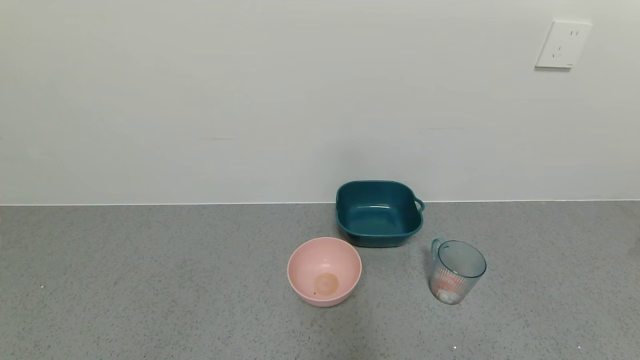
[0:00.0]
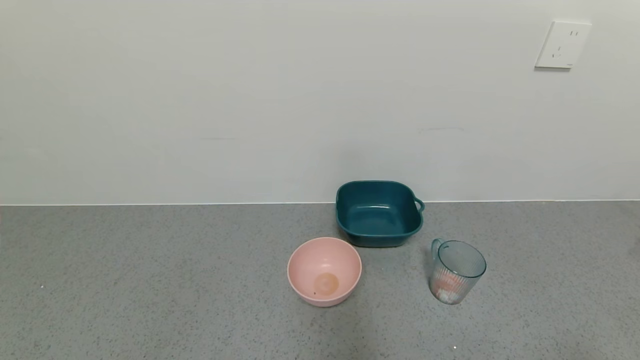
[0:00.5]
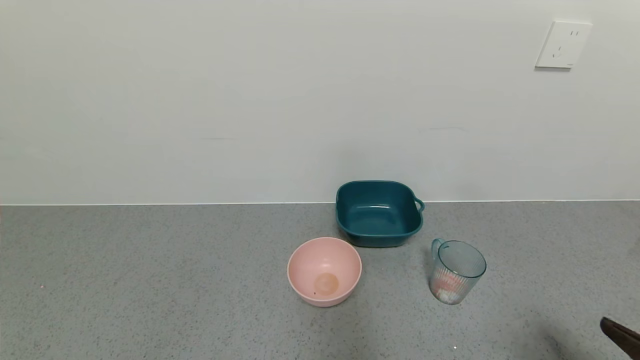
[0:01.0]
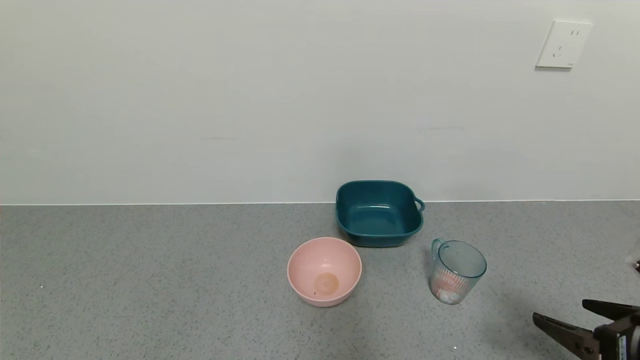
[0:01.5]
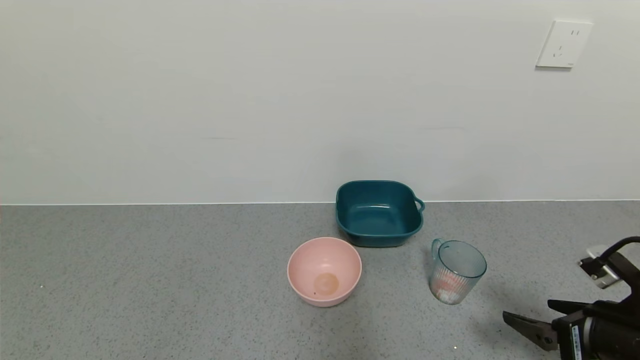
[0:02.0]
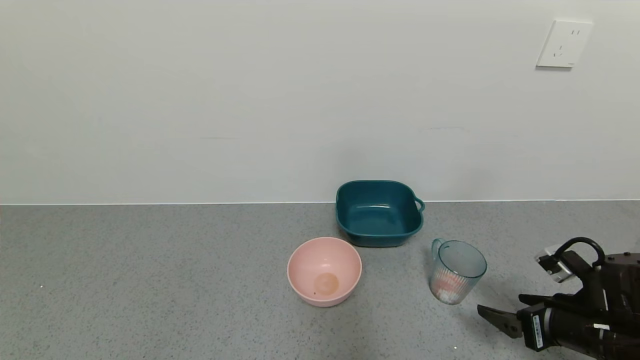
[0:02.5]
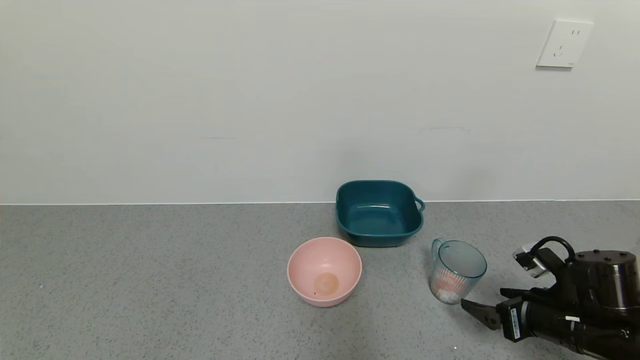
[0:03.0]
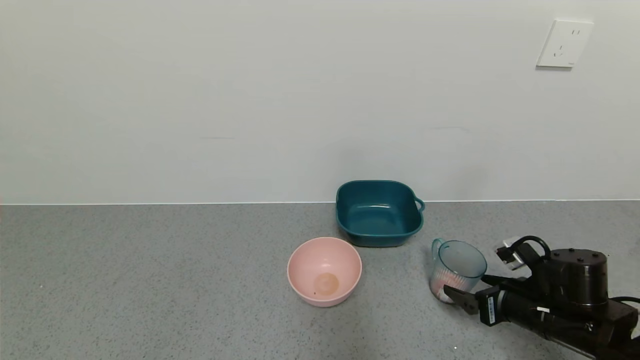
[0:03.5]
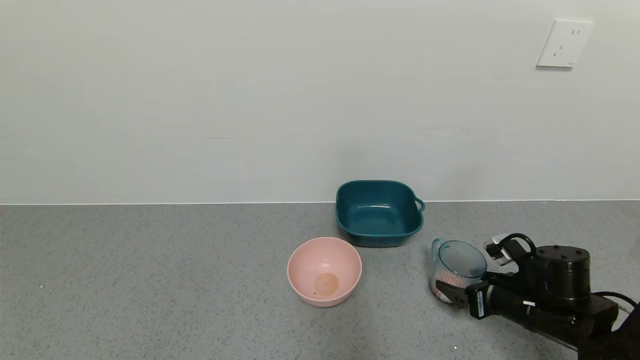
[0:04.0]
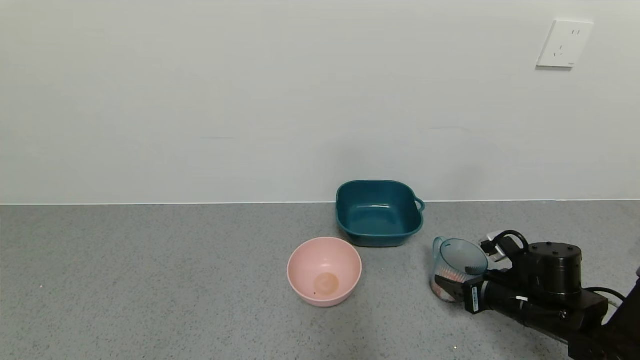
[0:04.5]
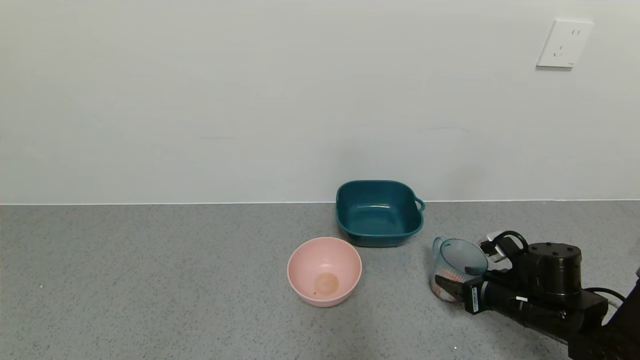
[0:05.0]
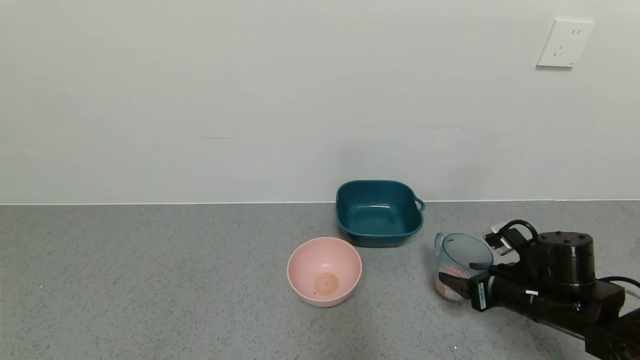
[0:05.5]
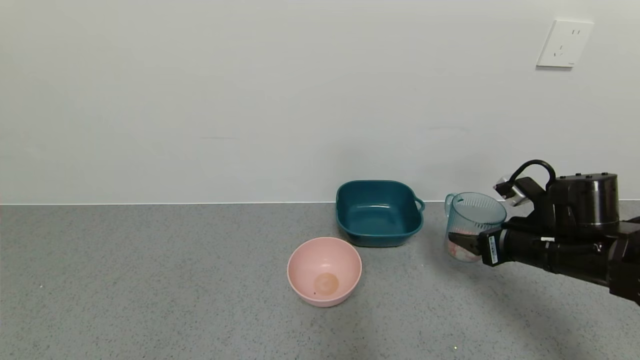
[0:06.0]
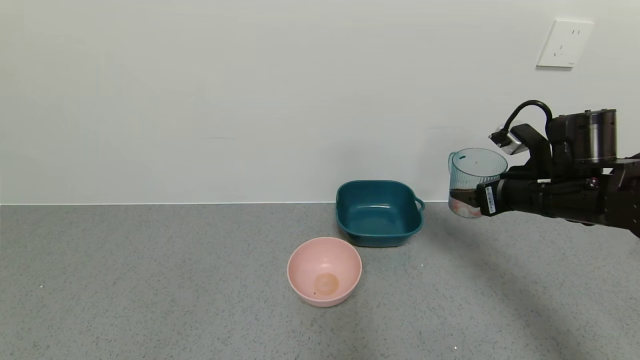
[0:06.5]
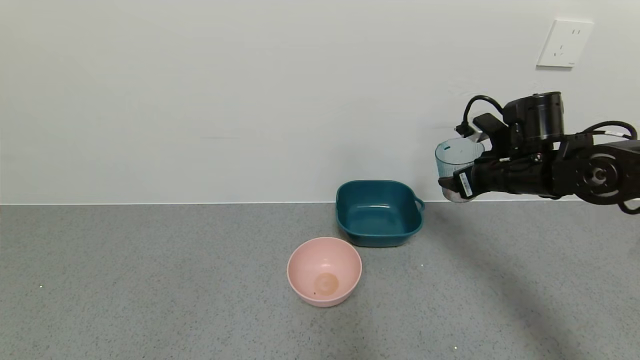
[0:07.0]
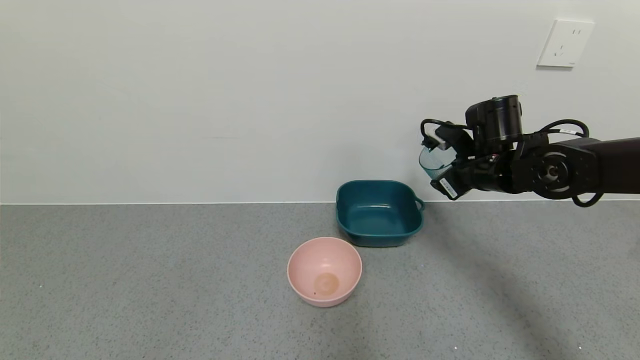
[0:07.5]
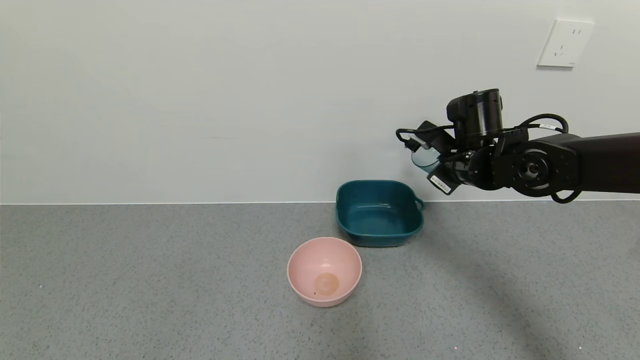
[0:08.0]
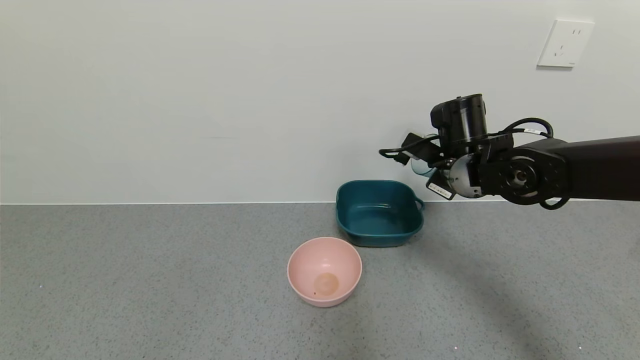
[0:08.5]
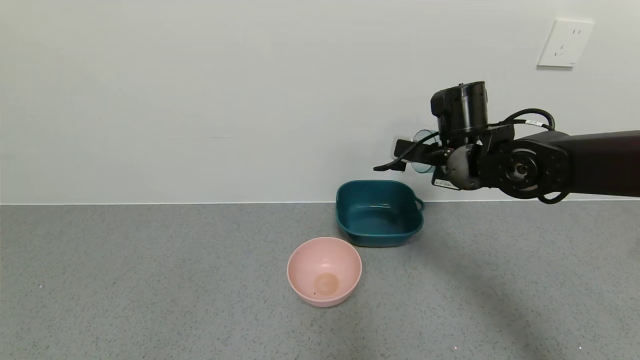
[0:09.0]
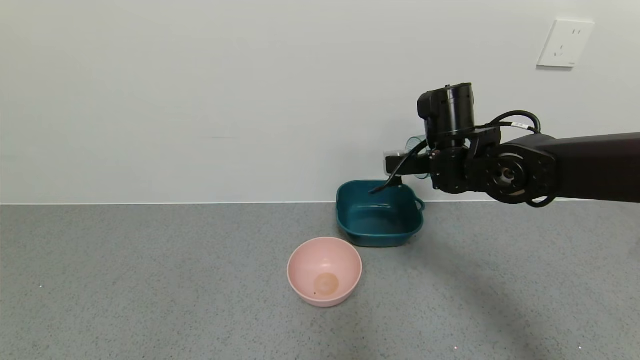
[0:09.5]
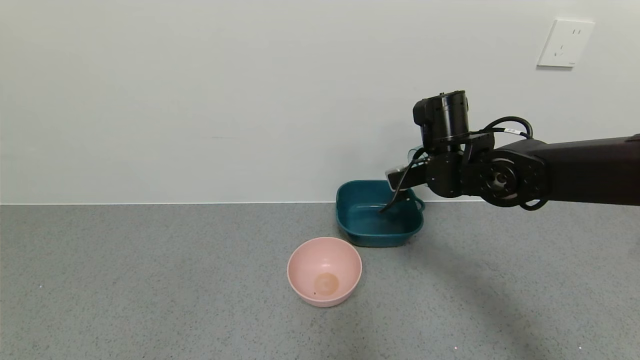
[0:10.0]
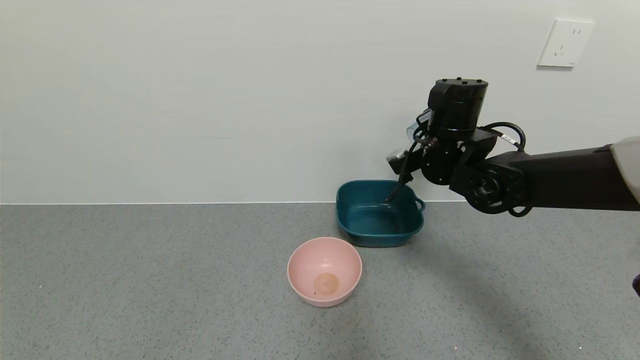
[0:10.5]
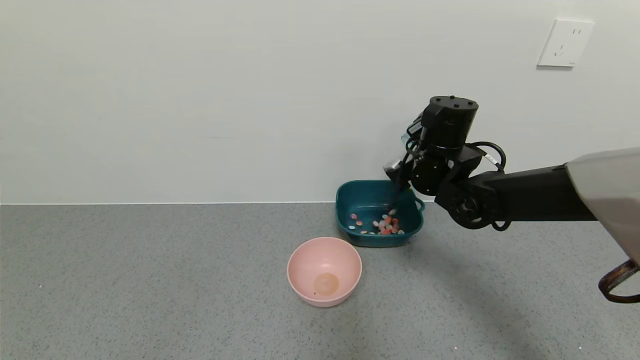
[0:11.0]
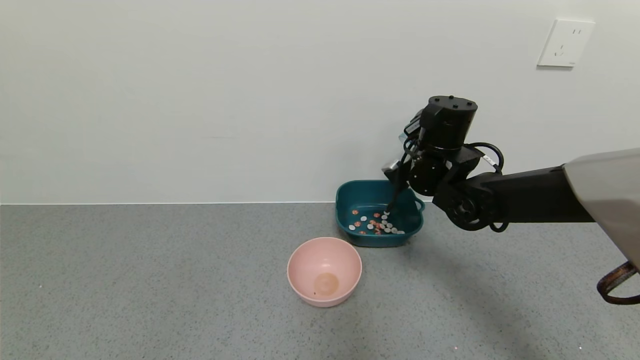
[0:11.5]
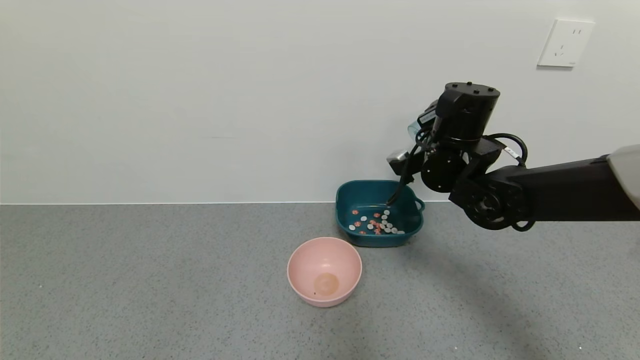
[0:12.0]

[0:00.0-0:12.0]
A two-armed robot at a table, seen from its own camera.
Task of the whole recording: use a gripper to pick up the cup and pour the solid into a bowl or tray.
Step, 0:00.0 to 0:04.5: Grasp the glass of shrimp with the right gripper.
0:00.0 to 0:02.0: The right gripper moves forward, some 20 cm.
0:02.0 to 0:04.0: The right gripper moves forward and downward, about 10 cm.
0:04.0 to 0:06.0: The right gripper travels upward by about 10 cm, and closes up.
0:06.0 to 0:08.0: The right gripper moves forward, to the left and upward, roughly 15 cm.

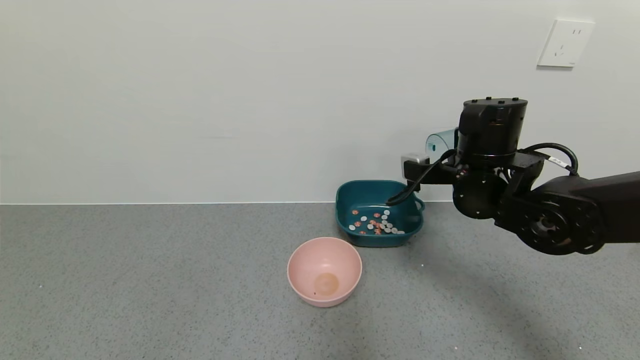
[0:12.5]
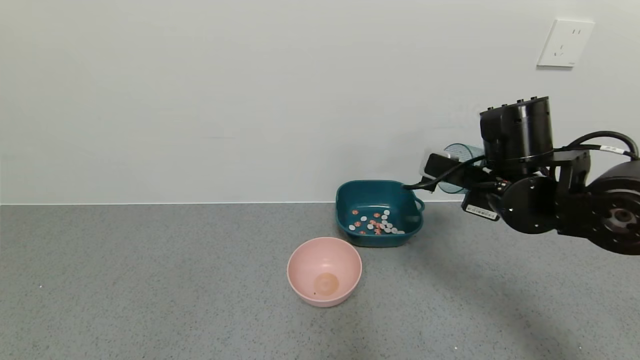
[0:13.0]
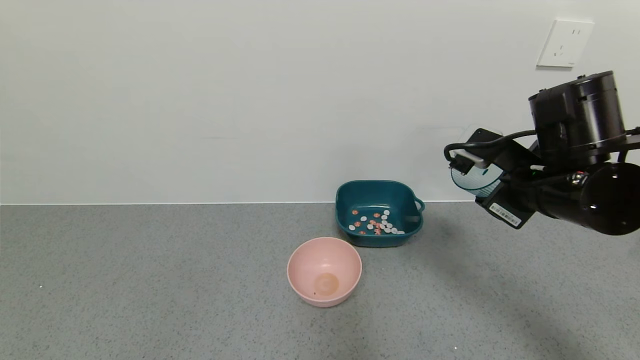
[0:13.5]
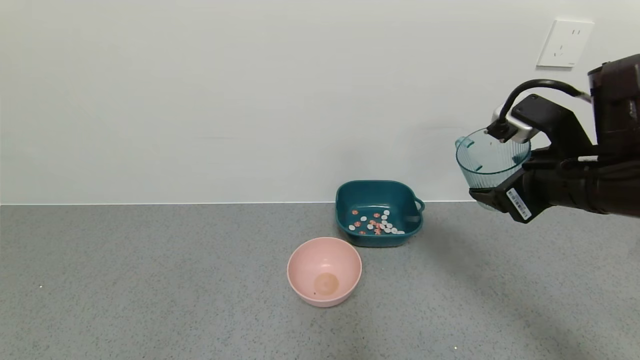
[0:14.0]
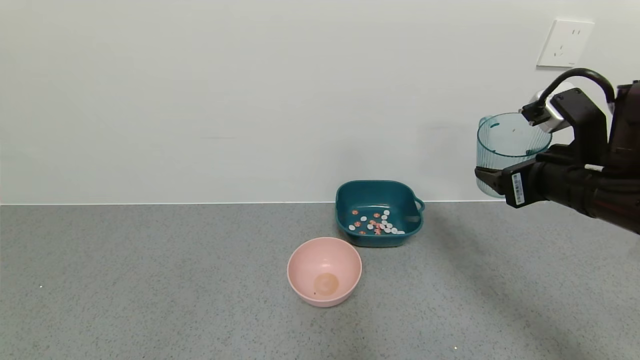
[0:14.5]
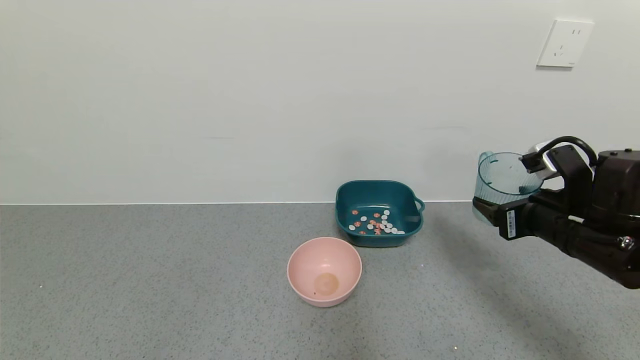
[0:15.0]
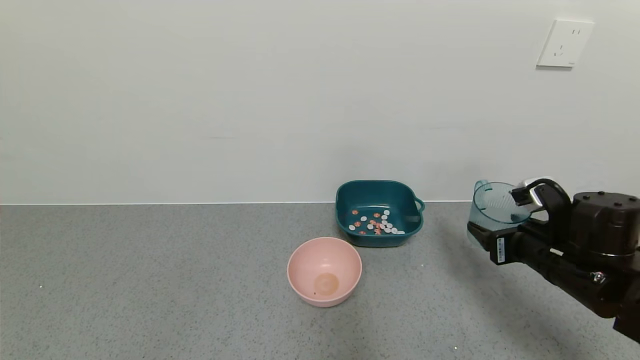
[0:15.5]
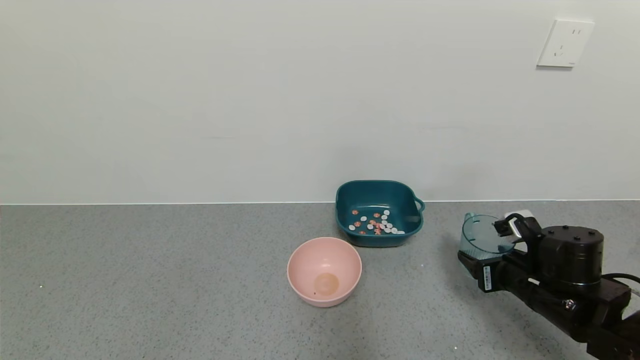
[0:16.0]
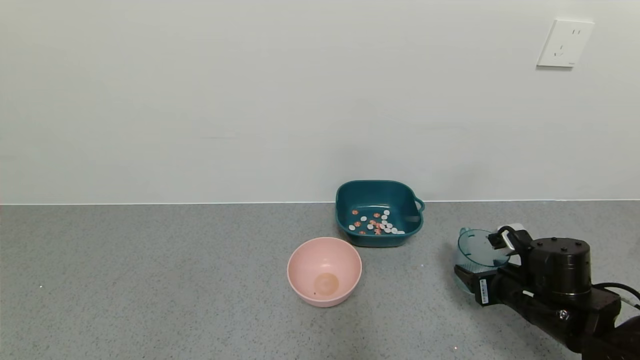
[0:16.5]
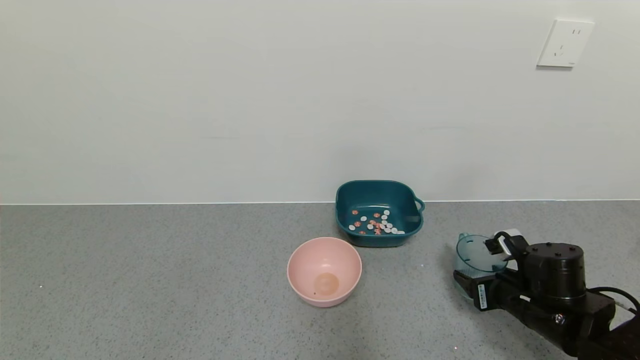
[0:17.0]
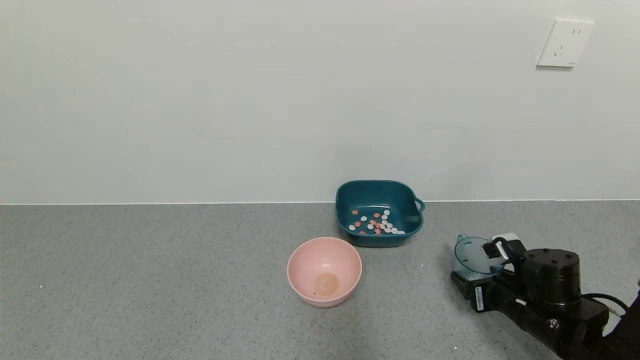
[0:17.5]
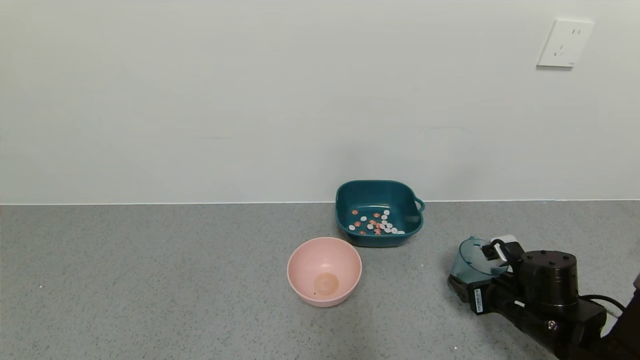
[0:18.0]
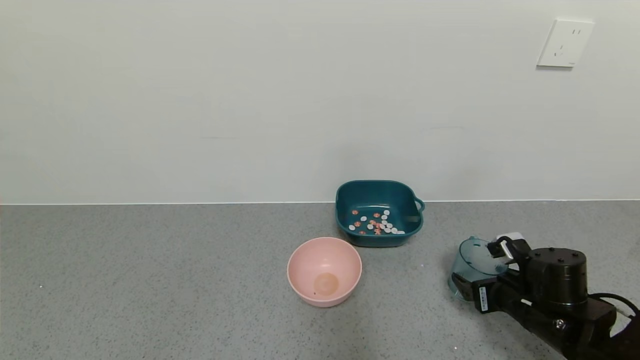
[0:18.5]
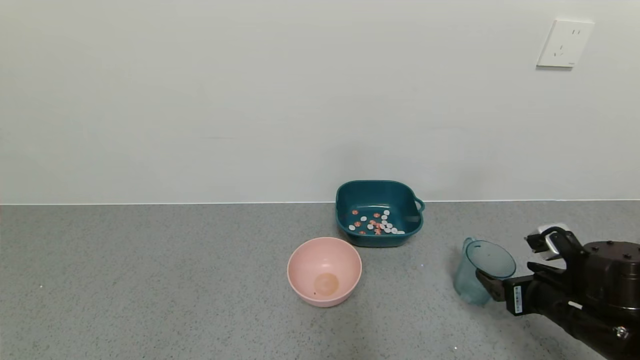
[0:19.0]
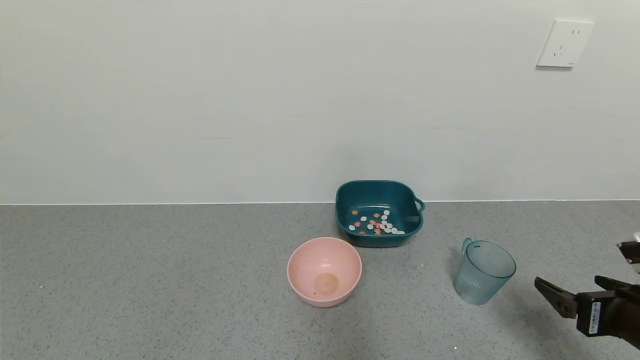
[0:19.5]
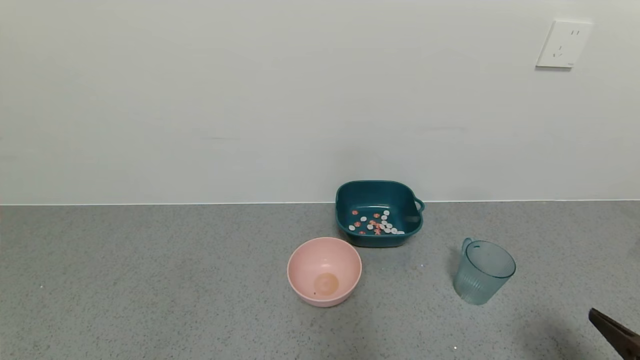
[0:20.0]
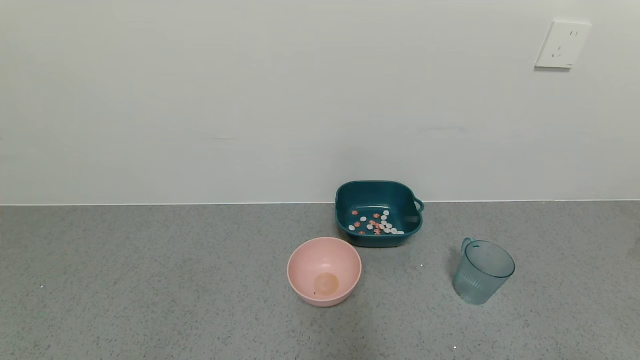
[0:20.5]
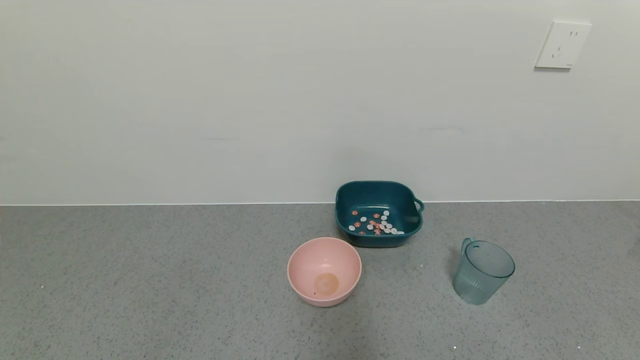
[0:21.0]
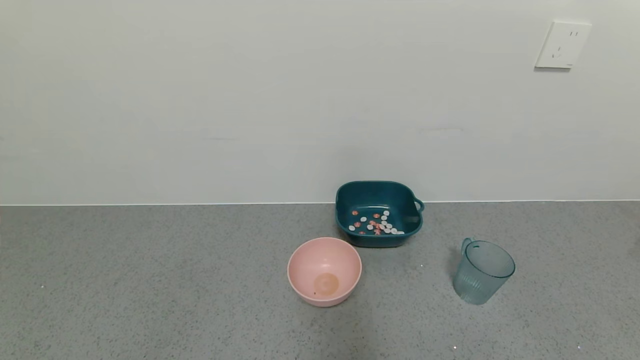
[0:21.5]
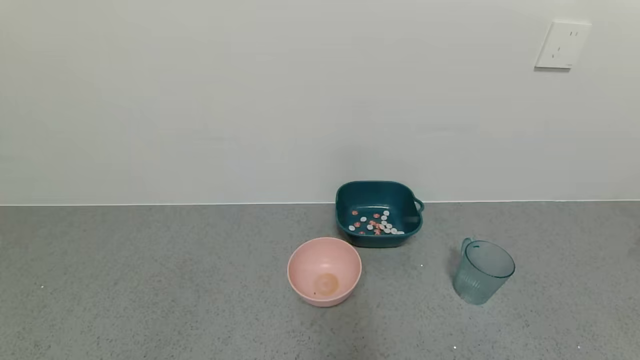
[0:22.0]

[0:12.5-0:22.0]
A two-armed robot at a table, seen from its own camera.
Task of the whole recording: use a gripper to pick up the cup and pour the solid into a bowl or tray.
Step, 0:12.5 to 0:19.0: Place the glass cup with the right gripper.
0:12.5 to 0:14.5: The right gripper heads to the right and backward, covering roughly 10 cm.
0:14.5 to 0:16.5: The right gripper goes about 20 cm downward.
0:16.5 to 0:18.0: The right gripper opens up.
0:18.0 to 0:20.0: The right gripper goes roughly 20 cm backward and upward.
0:20.0 to 0:22.0: The right gripper travels backward and downward by roughly 10 cm.
